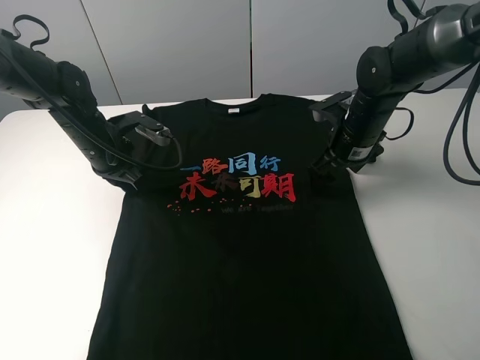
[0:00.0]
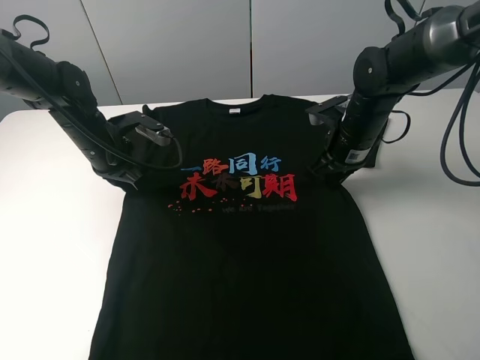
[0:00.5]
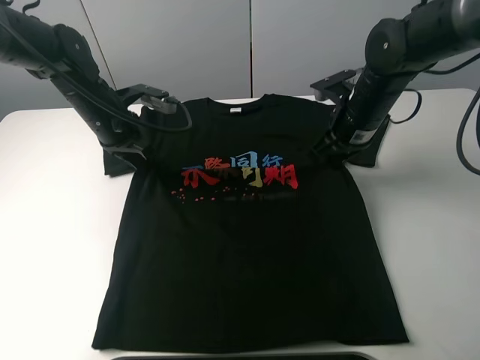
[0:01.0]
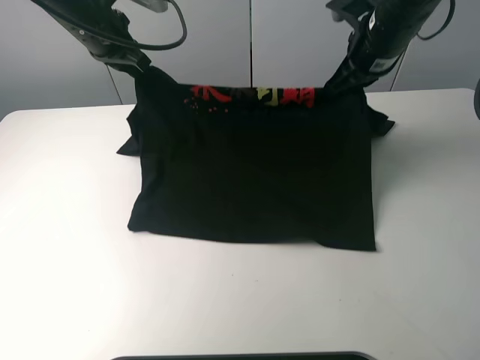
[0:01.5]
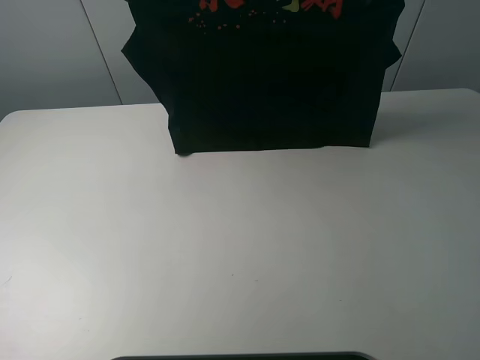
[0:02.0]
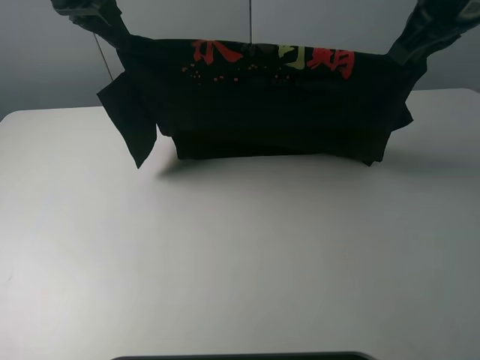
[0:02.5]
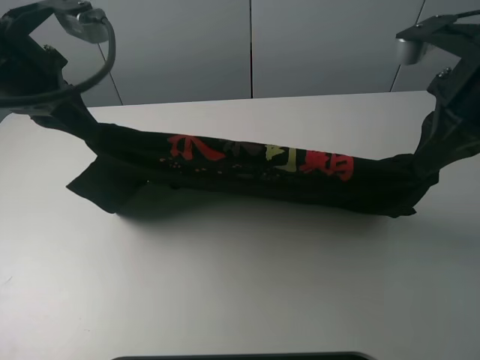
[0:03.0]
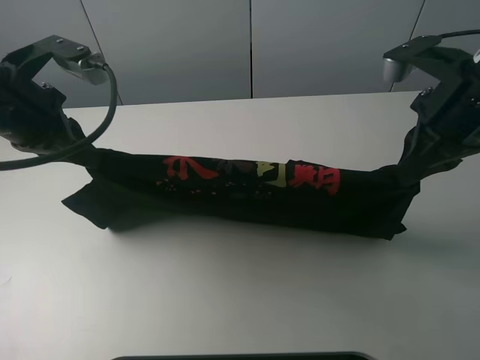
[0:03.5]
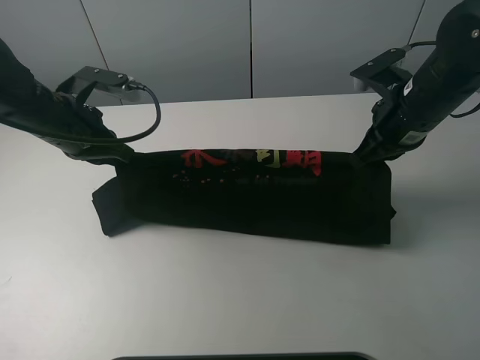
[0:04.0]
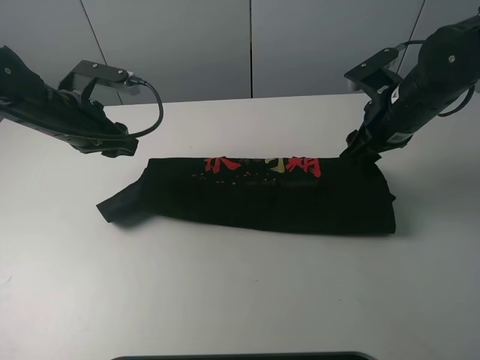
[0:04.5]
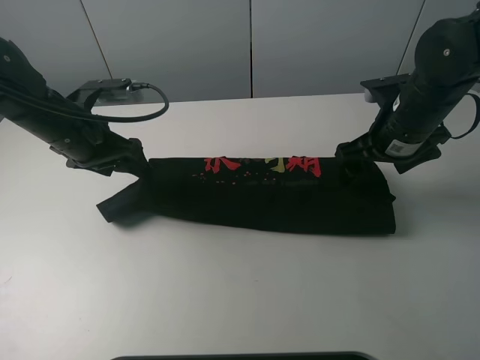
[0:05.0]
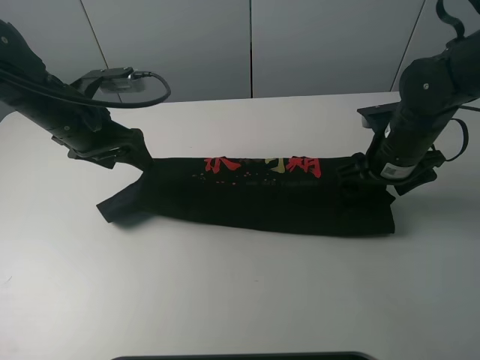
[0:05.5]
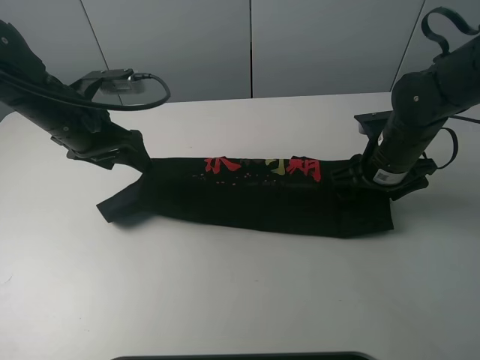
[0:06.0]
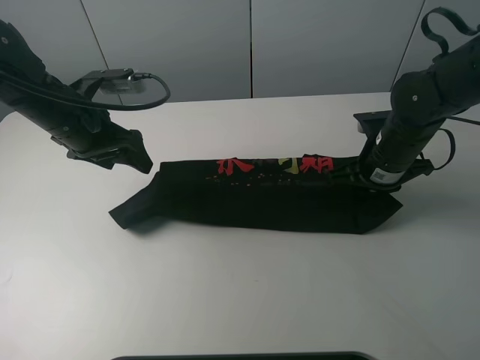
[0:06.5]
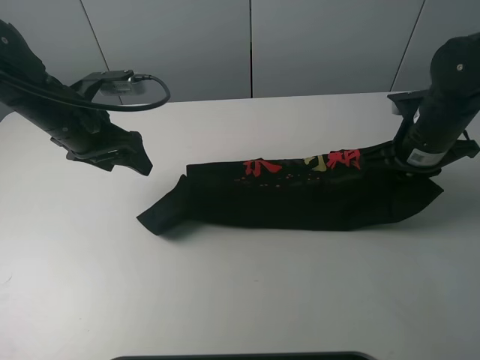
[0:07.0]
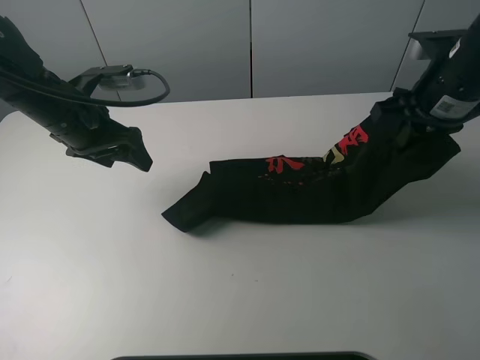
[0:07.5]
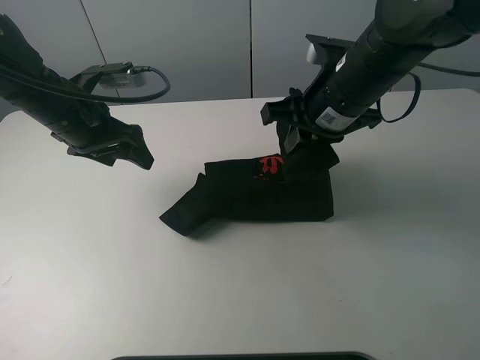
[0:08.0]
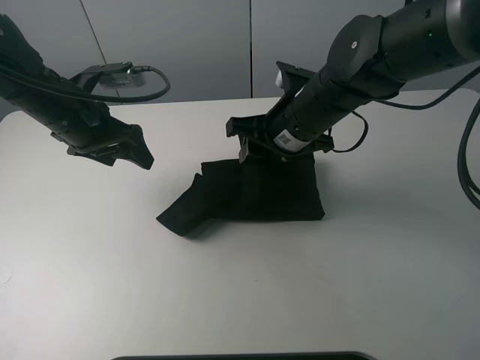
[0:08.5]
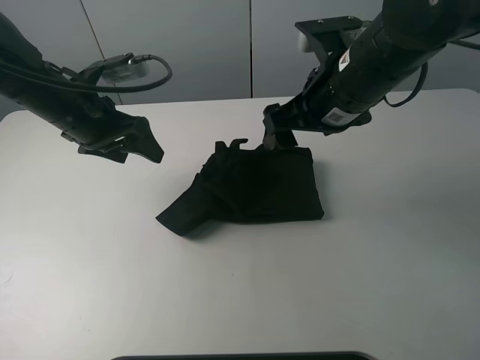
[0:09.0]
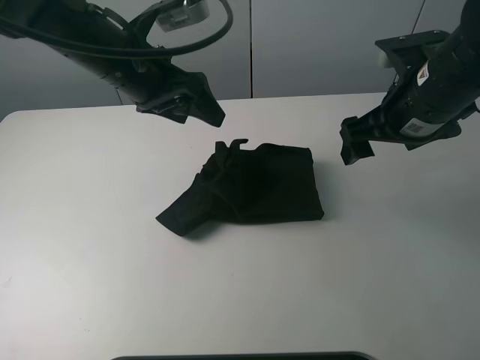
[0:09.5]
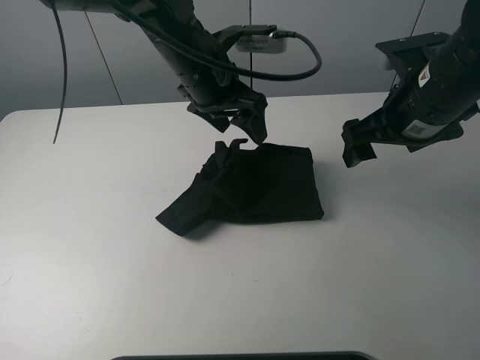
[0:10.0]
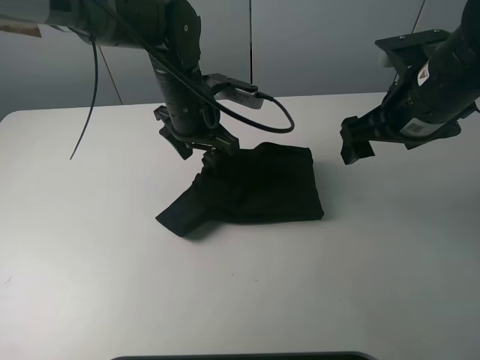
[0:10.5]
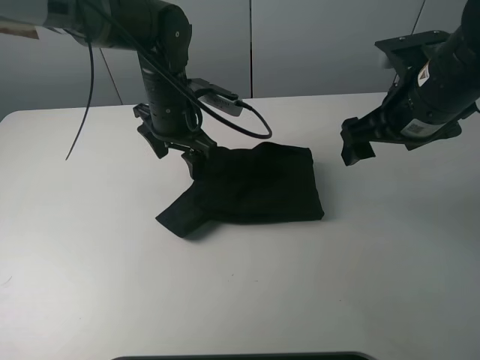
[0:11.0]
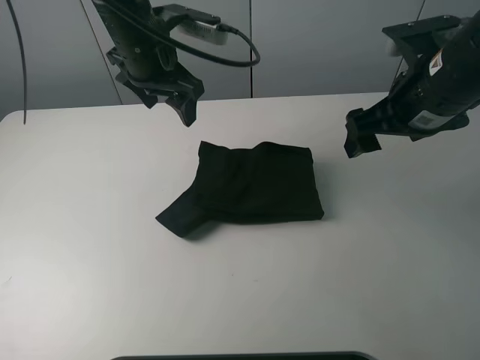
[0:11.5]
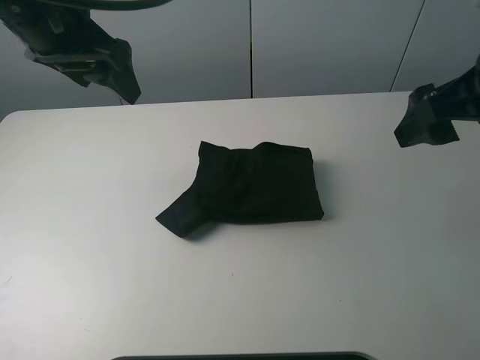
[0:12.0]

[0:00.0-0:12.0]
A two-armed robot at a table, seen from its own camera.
Task of the whole recording: fold the clothes on the table.
Step, 0:01.5 to 0:04.5: Fold the black T-shirt downward with the left gripper.
Step, 0:05.0 to 0:06.0: Grasp the black T-shirt with the right gripper.
Step, 0:06.5 to 0:08.5: Fold the black T-shirt from right to left with right gripper.
0:00.0 to 0:02.0: The two grippers go approximately 25 cm upward. The right gripper closes up.
0:02.0 to 0:04.0: The two grippers go approximately 20 cm downward and backward.
0:04.0 to 0:06.0: The left gripper opens up; the right gripper travels downward by roughly 5 cm, and opens up.
0:06.0 to 0:08.0: The right gripper shifts roughly 15 cm to the left and upward, and closes.
0:08.0 to 0:10.0: The right gripper goes some 10 cm to the right, and opens its fingers. Meanwhile the left gripper travels to the right by some 20 cm.
0:10.0 to 0:12.0: The right gripper travels backward and upward by some 10 cm, while the left gripper shifts some 20 cm to the left and upward.
